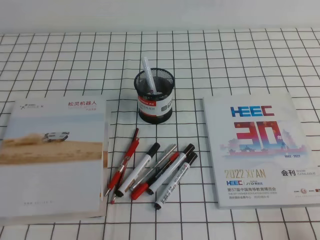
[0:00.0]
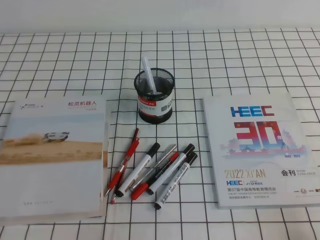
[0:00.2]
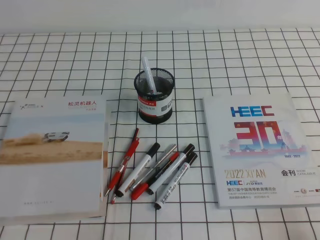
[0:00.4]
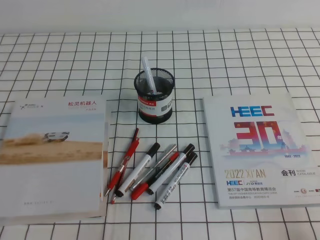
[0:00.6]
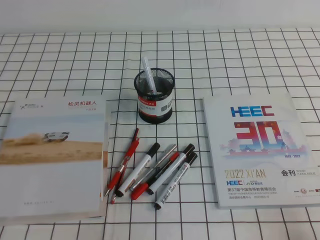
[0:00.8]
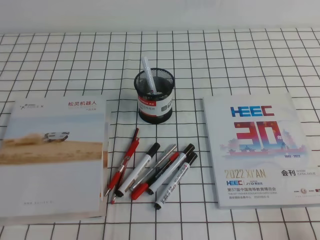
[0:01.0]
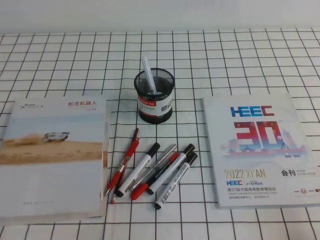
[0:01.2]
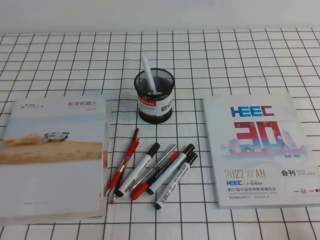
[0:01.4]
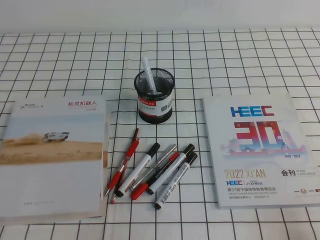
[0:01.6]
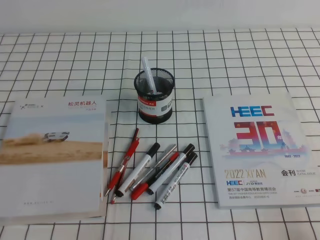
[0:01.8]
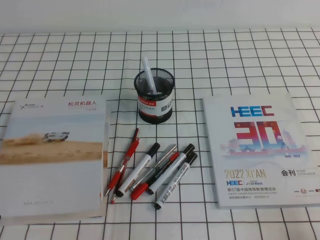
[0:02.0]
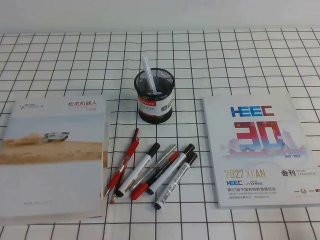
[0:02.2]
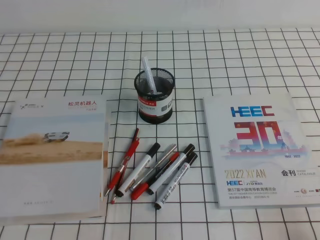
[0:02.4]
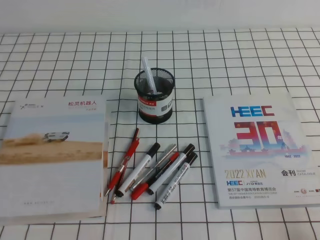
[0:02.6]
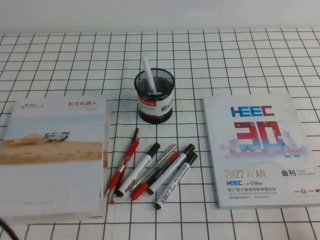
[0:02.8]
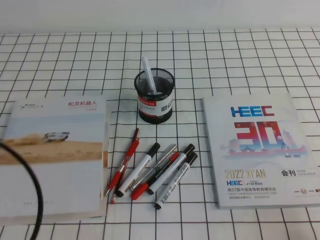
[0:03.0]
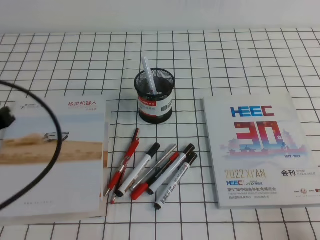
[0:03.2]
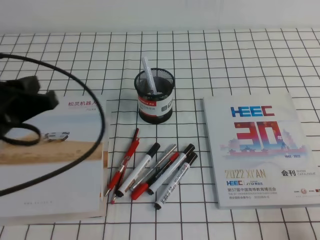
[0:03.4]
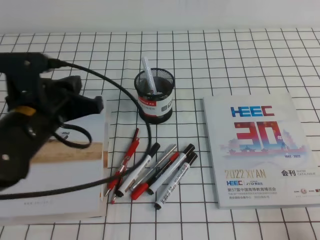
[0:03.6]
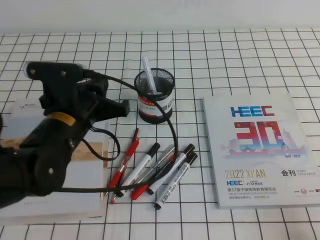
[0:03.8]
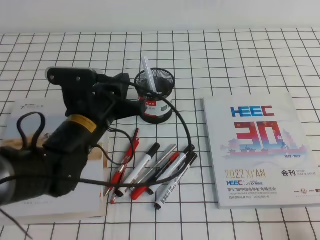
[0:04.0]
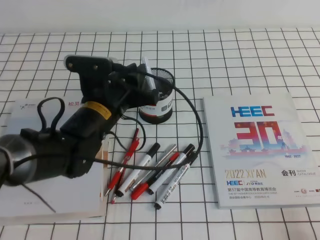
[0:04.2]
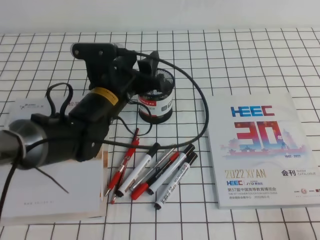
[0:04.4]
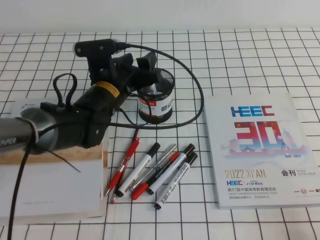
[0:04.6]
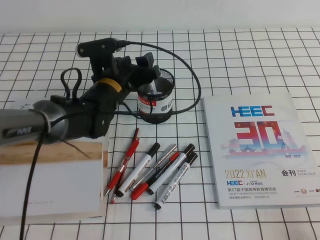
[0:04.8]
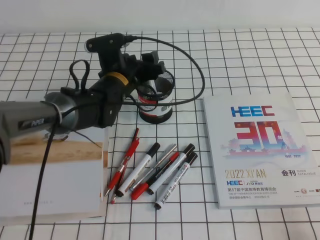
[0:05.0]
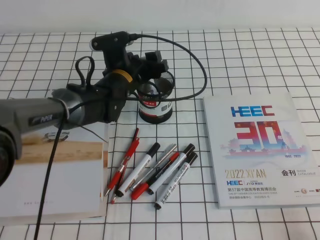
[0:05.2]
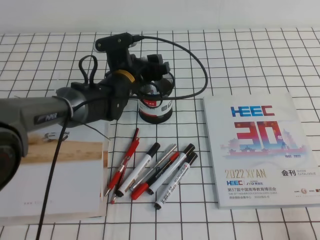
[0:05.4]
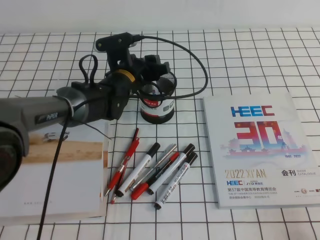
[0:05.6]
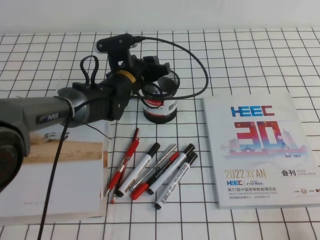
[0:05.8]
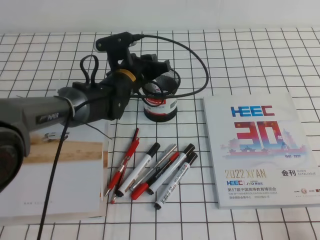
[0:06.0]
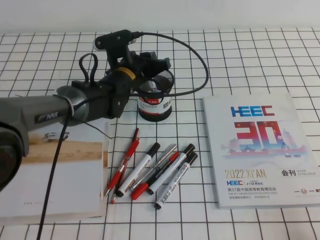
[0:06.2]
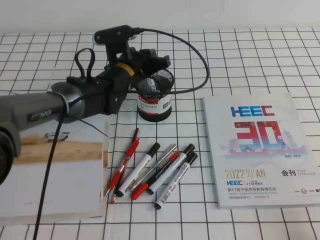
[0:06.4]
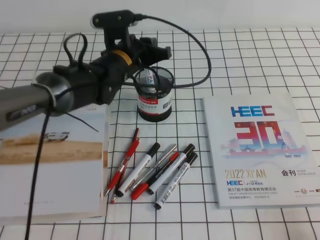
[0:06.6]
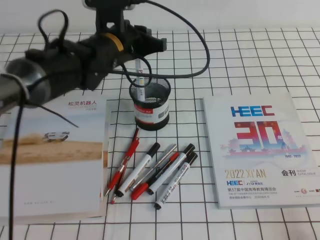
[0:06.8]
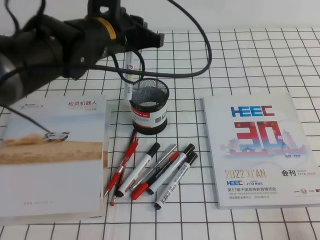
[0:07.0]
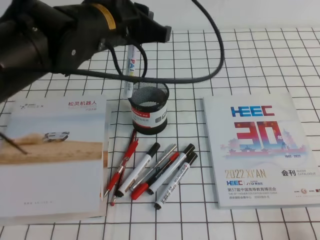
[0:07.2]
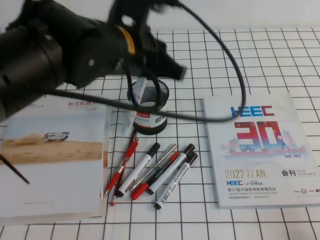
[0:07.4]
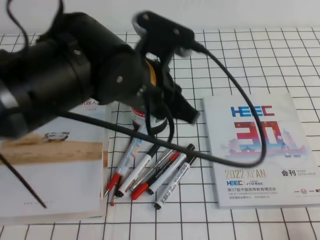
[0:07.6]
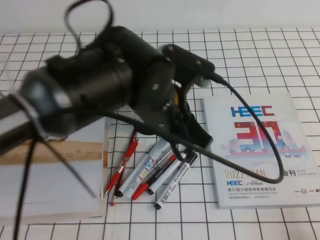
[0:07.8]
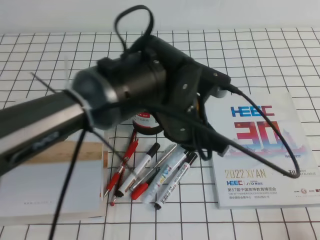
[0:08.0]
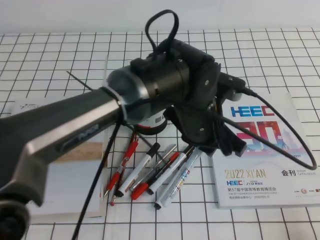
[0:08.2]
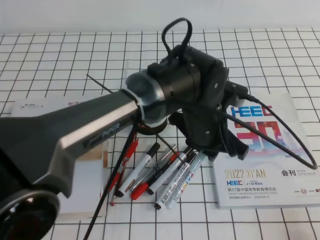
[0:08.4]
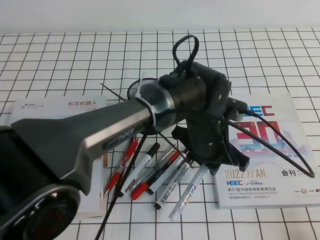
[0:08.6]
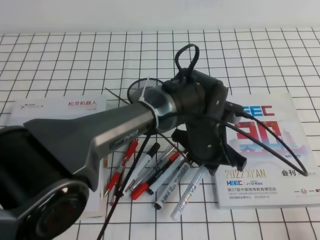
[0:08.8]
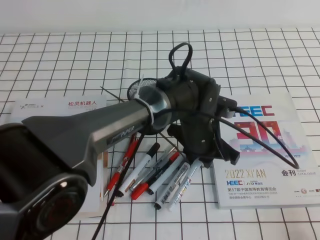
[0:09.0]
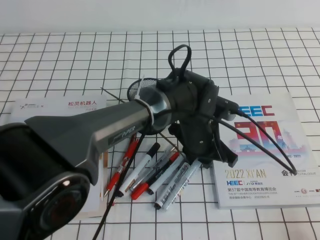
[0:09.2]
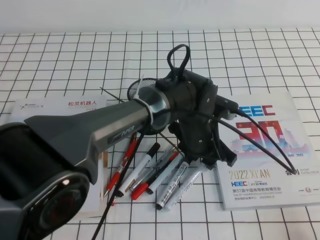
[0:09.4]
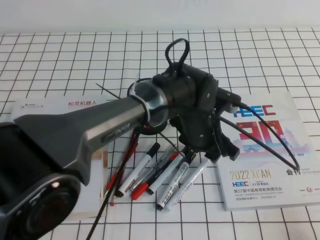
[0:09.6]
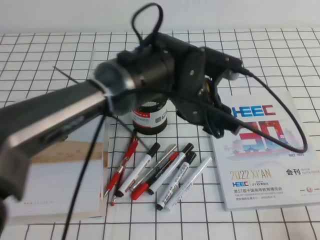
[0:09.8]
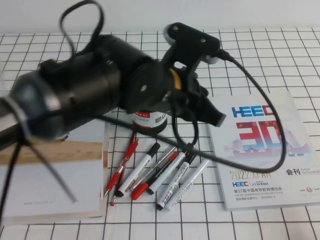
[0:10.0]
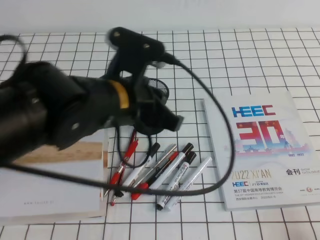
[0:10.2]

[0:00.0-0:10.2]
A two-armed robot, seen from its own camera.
0:00.0 to 0:01.4: Both grippers stay put.
0:01.4 to 0:03.0: The left gripper travels upward and forward by some 15 cm.
0:03.0 to 0:04.4: The left gripper goes approximately 30 cm forward and to the right, and opens its fingers.
0:04.4 to 0:05.8: The left gripper heads forward, covering about 10 cm.
0:05.8 to 0:07.2: The left gripper moves upward and backward, roughly 20 cm, and closes.
0:07.2 to 0:08.8: The left gripper is displaced downward and to the right by roughly 20 cm.
0:08.8 to 0:10.2: The left gripper shifts roughly 20 cm to the left and upward, and opens and closes again.

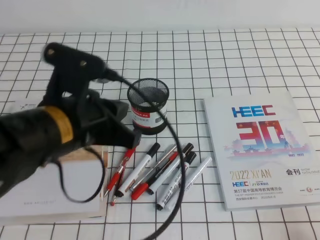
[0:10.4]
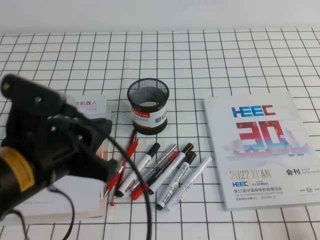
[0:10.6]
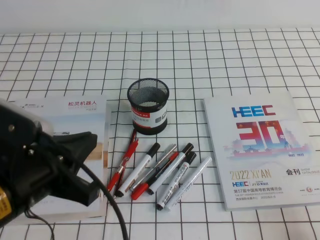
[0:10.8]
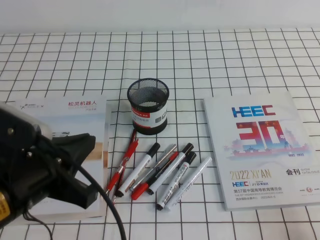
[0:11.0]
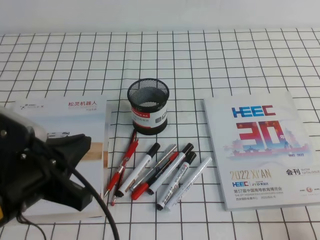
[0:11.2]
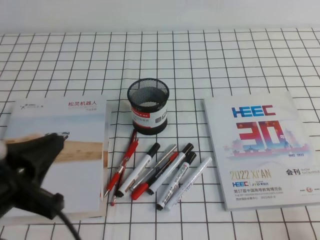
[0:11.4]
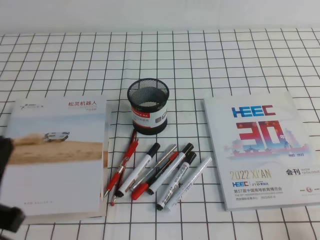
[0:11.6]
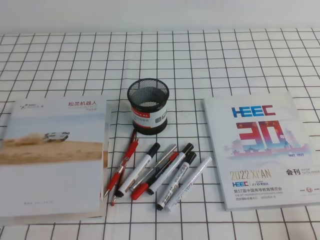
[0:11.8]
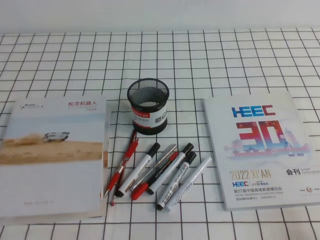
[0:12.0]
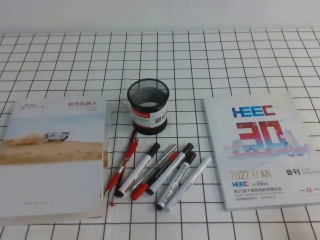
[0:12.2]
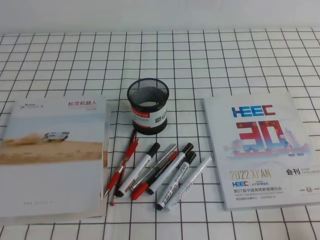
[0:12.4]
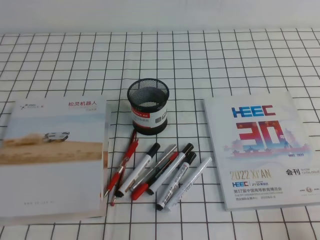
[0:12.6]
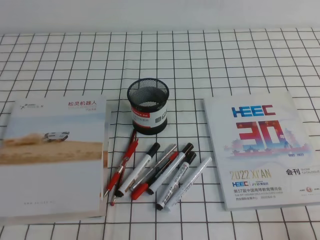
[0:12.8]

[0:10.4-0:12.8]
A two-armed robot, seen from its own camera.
Step, 0:10.4 to 0:12.8: Pick up the pen from the pen holder.
0:10.4 to 0:11.6: The left gripper shifts some 15 cm to the left and backward.
0:11.6 to 0:12.8: The left gripper shifts roughly 10 cm downward.

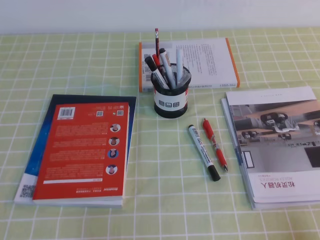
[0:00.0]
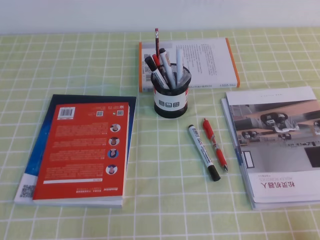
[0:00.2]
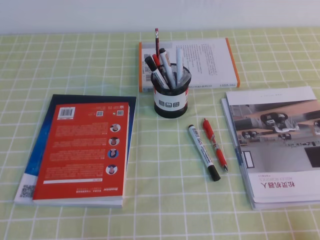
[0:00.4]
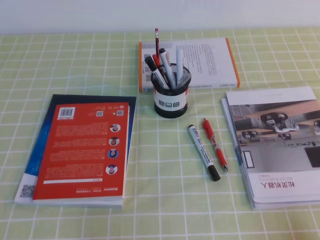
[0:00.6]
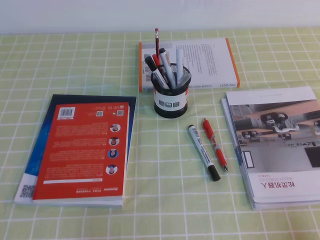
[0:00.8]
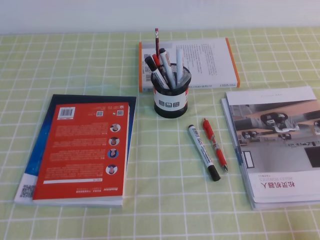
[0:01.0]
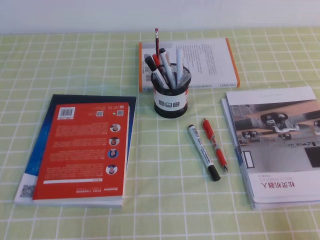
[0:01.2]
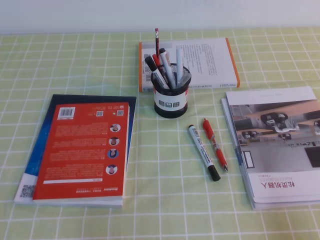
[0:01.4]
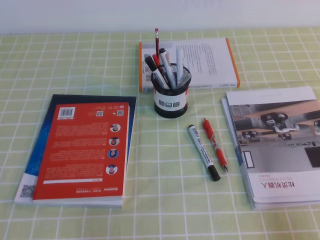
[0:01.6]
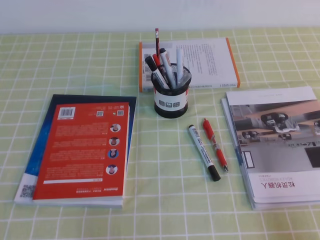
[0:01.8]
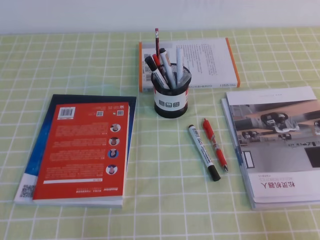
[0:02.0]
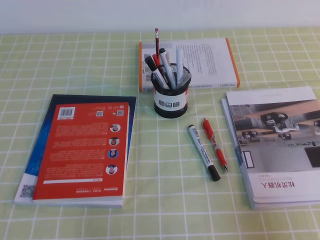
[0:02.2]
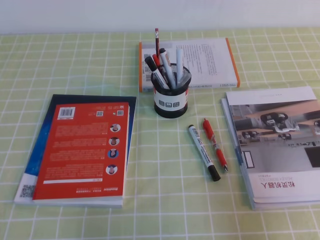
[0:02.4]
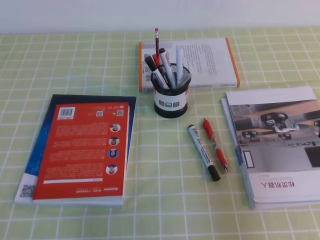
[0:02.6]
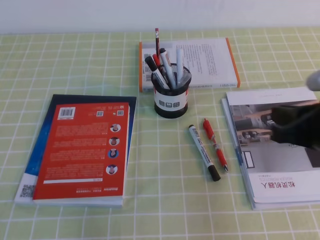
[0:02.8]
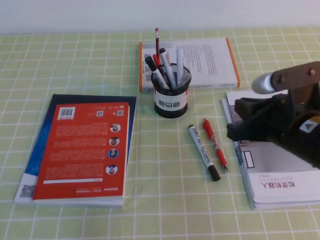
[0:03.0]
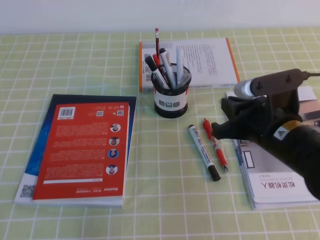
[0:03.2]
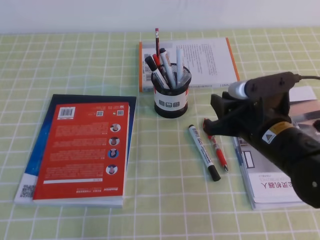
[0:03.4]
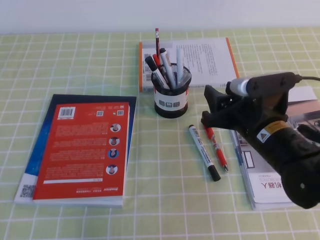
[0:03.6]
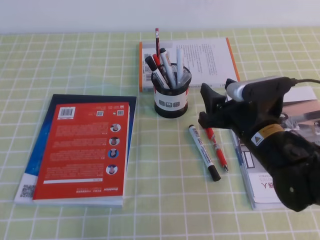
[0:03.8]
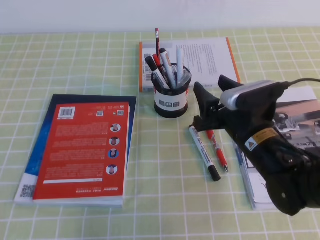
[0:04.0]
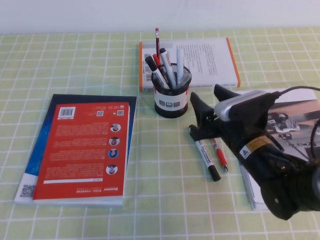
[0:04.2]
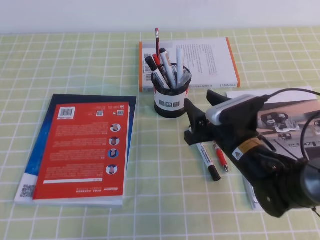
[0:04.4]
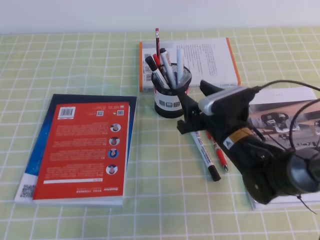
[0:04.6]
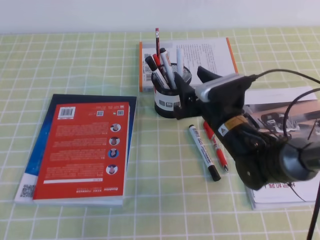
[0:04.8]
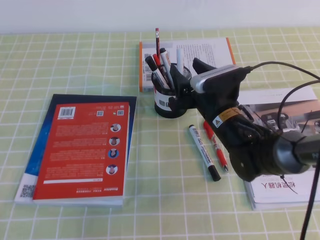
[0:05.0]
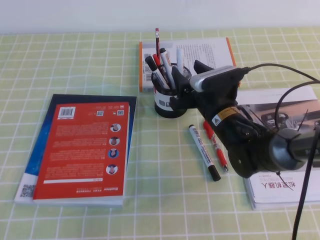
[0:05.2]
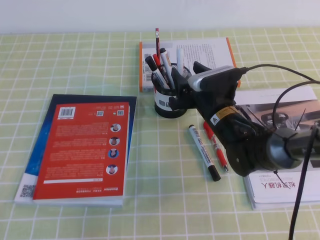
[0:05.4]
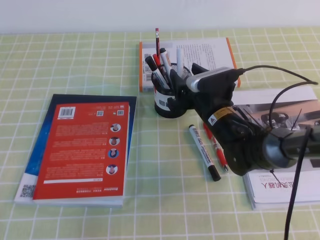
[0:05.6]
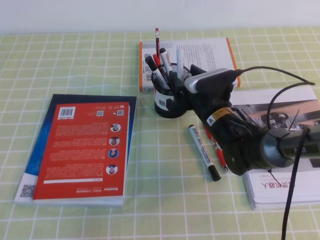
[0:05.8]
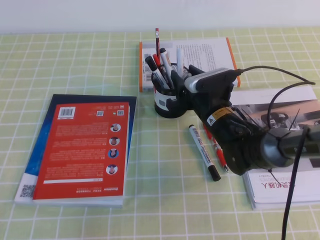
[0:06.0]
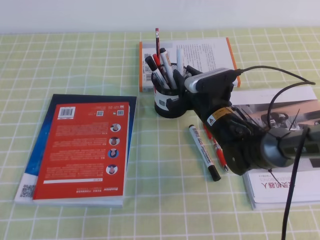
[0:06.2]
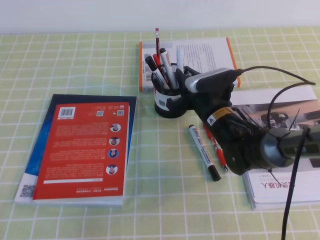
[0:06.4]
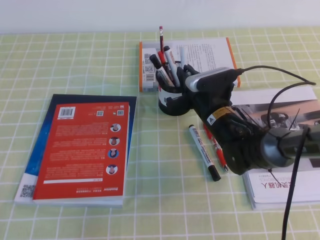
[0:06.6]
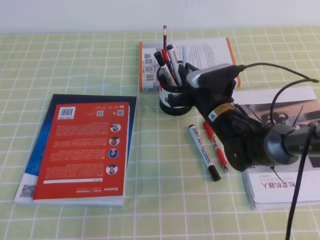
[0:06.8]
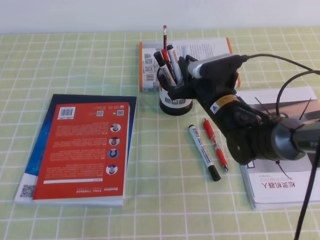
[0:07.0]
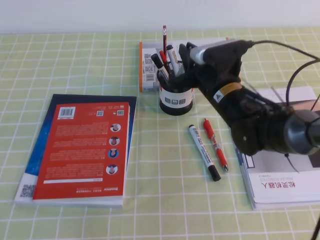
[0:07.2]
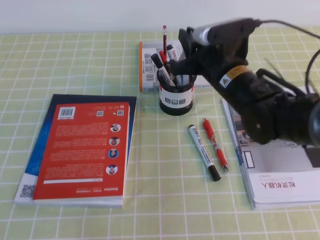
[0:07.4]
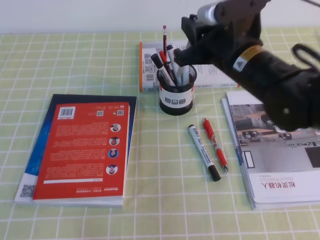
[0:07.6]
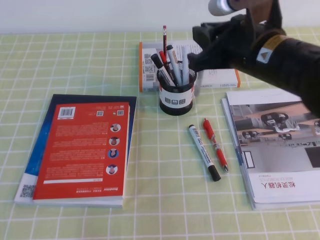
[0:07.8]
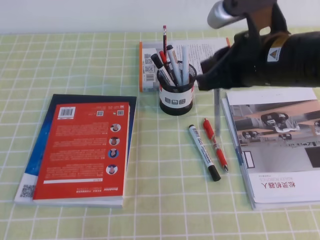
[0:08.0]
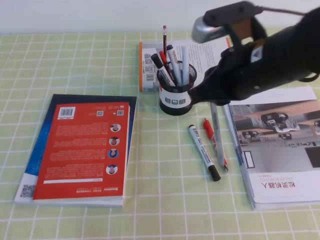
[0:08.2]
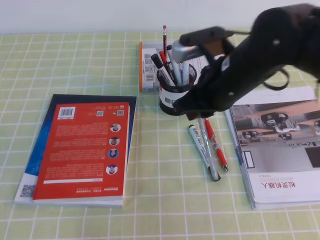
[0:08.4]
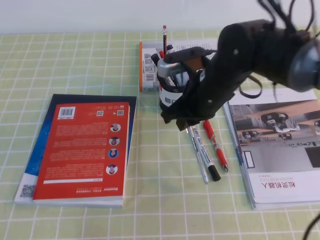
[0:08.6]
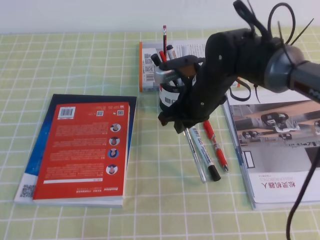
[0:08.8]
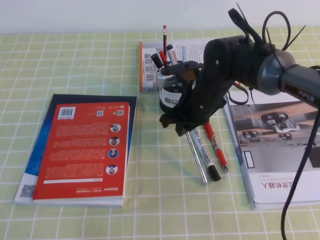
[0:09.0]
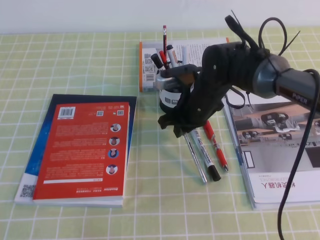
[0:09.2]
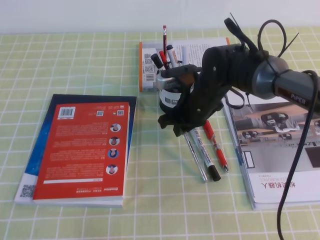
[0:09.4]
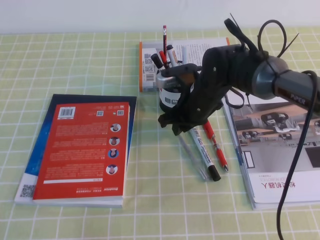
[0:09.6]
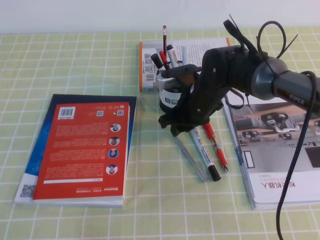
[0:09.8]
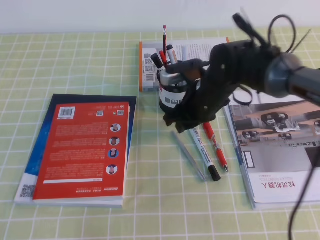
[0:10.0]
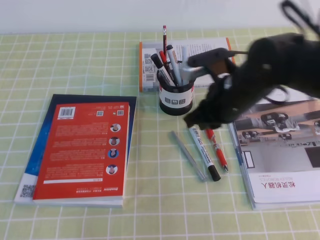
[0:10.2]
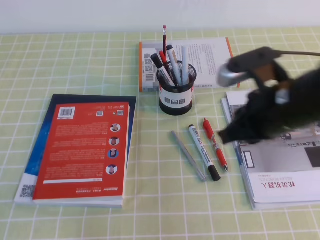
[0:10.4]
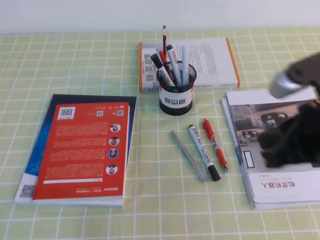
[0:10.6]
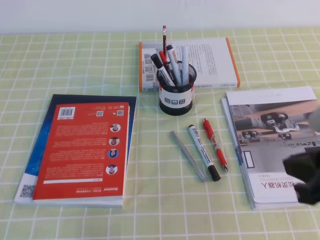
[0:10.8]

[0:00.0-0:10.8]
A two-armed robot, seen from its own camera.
0:01.6 to 0:03.0: The right gripper travels forward, to the left and upward by roughly 25 cm.
0:03.0 to 0:04.6: The right gripper is displaced downward, to the left and forward by some 15 cm, and opens up.
0:04.6 to 0:06.2: The right gripper is displaced forward by about 5 cm, and closes.
0:06.2 to 0:07.8: The right gripper heads upward, covering approximately 20 cm, and closes up.
0:07.8 to 0:09.2: The right gripper shifts about 15 cm downward, forward and to the left.
0:09.2 to 0:10.8: The right gripper is displaced backward, to the right and upward by about 30 cm, and opens, then closes once more.
